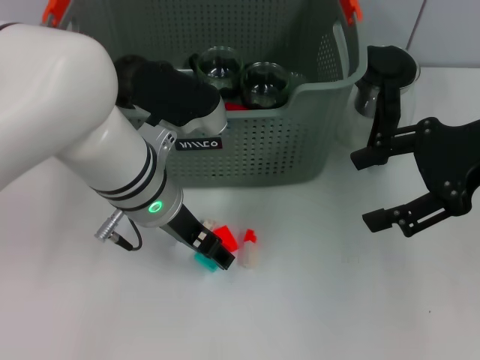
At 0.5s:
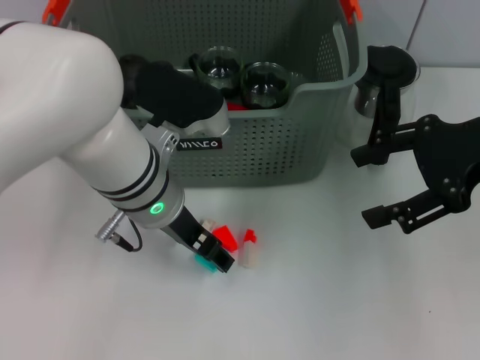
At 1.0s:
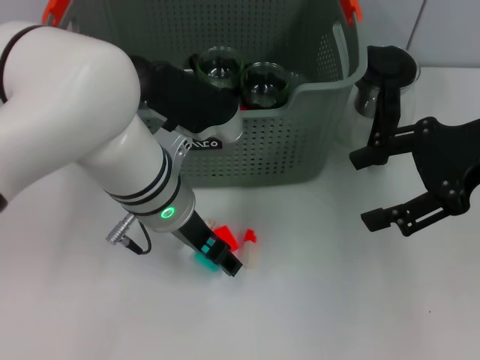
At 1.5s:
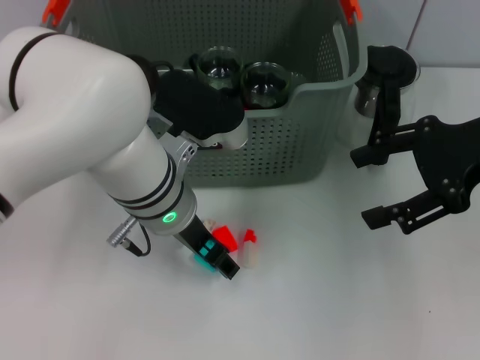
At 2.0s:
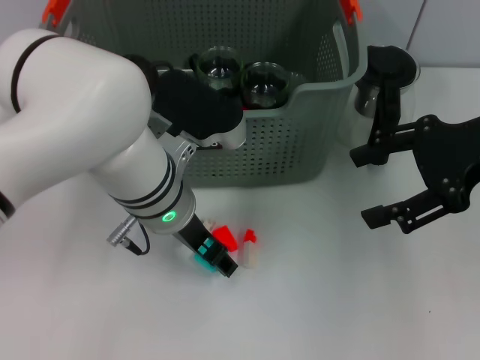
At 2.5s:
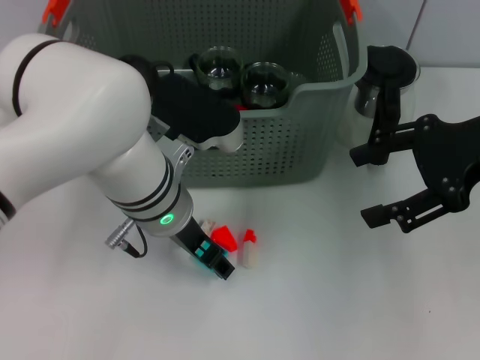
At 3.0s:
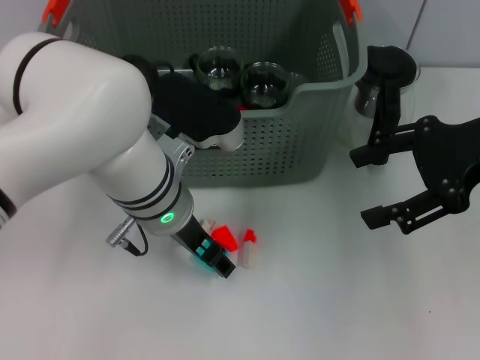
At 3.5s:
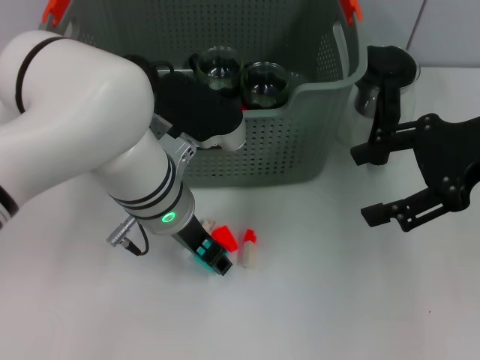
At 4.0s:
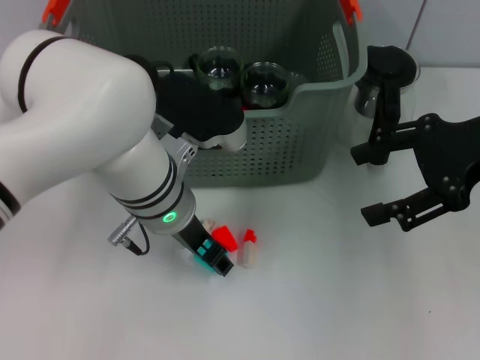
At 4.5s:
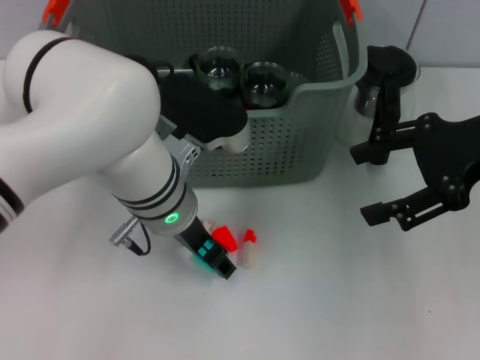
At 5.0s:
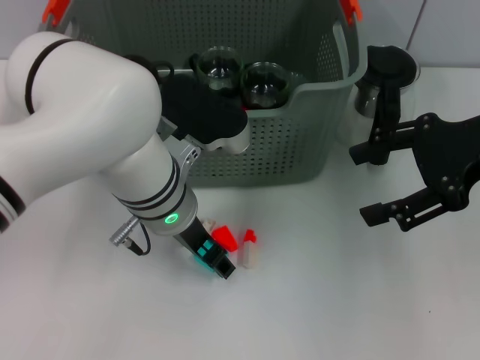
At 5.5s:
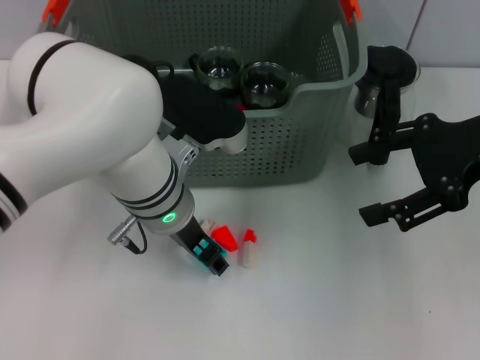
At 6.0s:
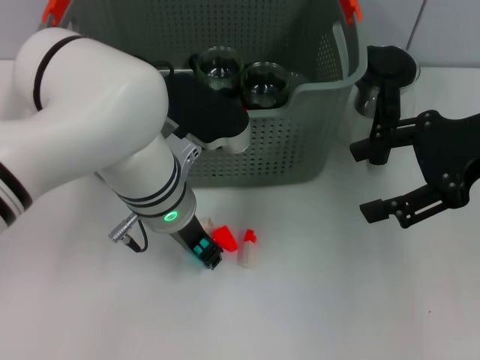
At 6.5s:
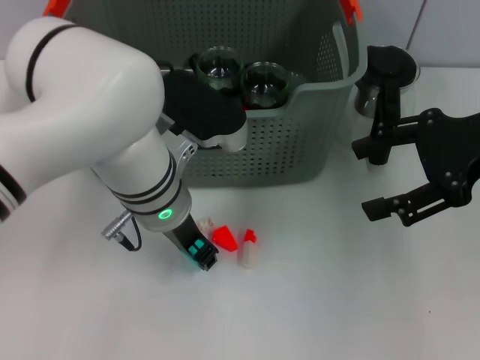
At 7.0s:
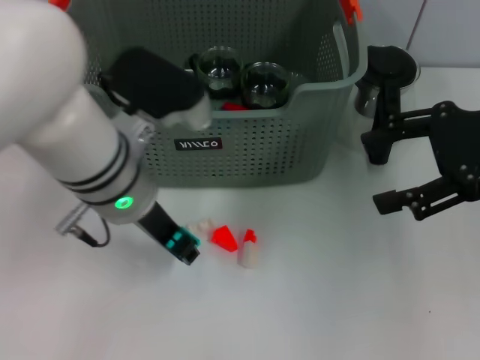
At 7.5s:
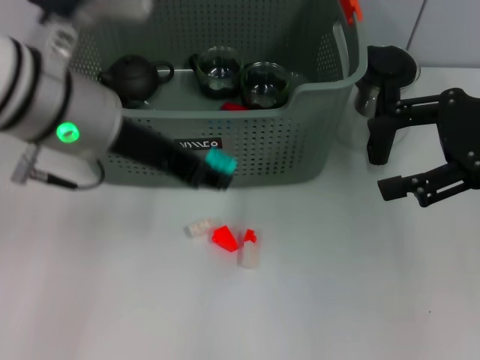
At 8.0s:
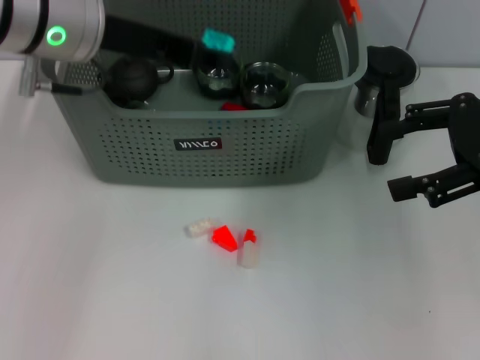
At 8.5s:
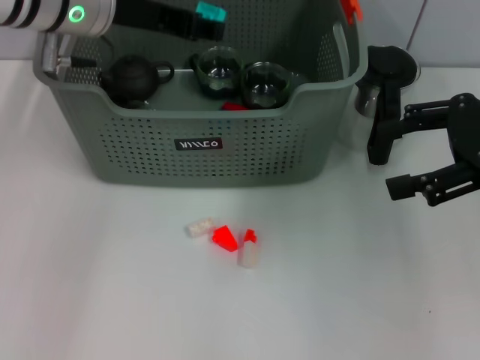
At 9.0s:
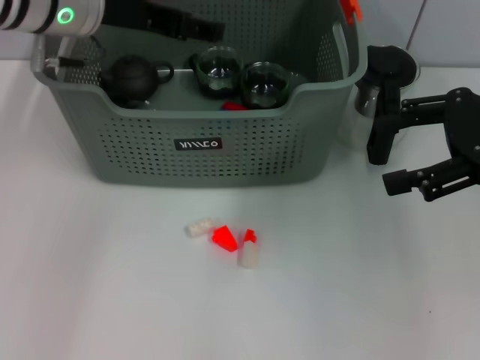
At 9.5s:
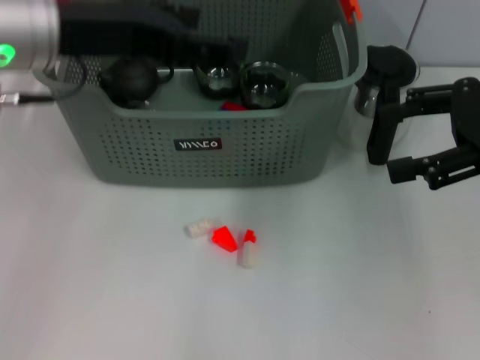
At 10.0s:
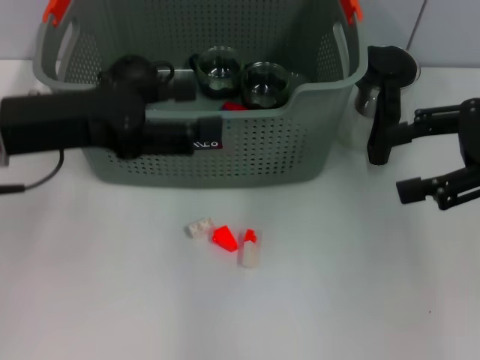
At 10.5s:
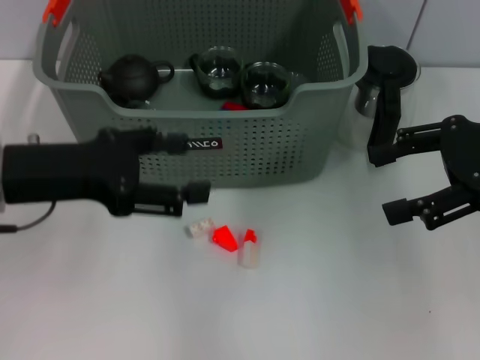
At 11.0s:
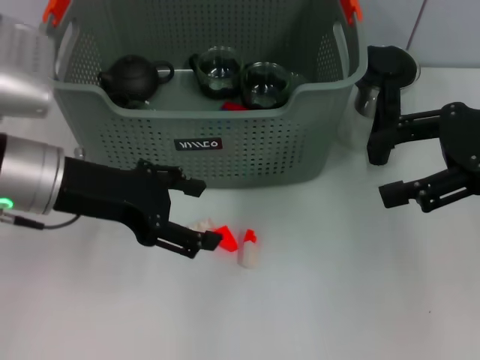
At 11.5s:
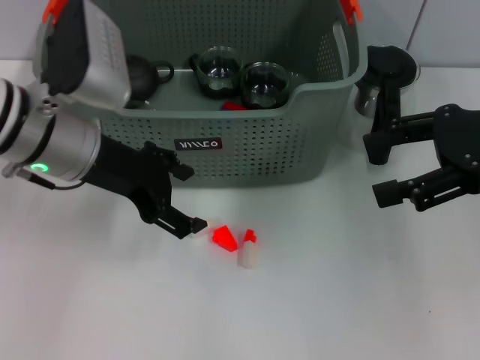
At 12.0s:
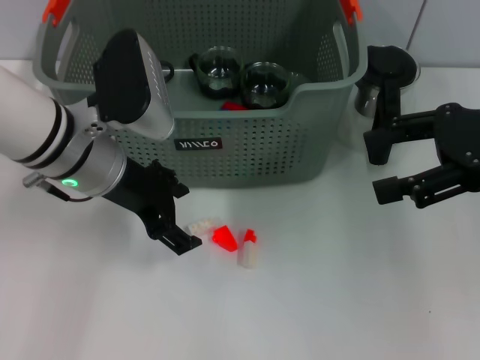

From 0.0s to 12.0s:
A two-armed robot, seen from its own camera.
Task of the whole recording: pick up the teacup on the table and place it into the storage bin, pick up the block on the table and place it into the storage bin.
Step, from 0.0s to 5.5s: Grasp the light blue block with left gripper.
Step, from 6.0s to 9.5s: Place the light blue block in the storage box with left gripper.
From 0.0s to 2.0s: The grippers move only a little.
From 2.0s to 6.0s: Both grippers stay put.
From 6.0s to 8.0s: The left gripper travels upward and to the left by roughly 15 cm.
From 8.0s to 10.0s: The left gripper travels to the left, backward and downward by approximately 10 cm, and opens.
From 10.0s to 12.0s: The left gripper travels to the right, forward and downward by roughly 10 cm.

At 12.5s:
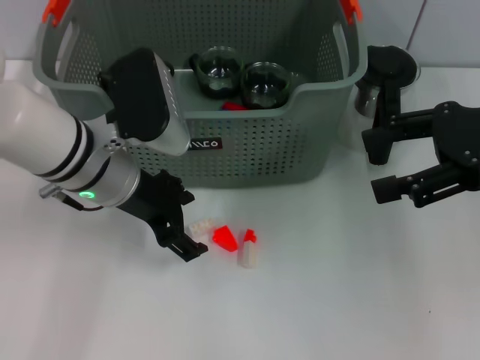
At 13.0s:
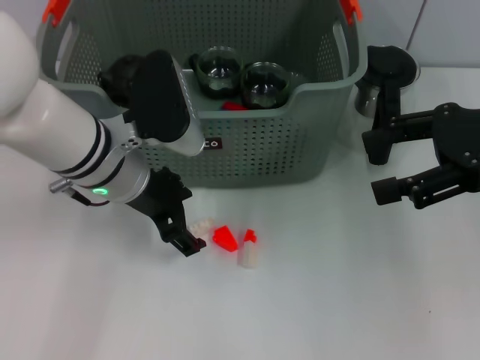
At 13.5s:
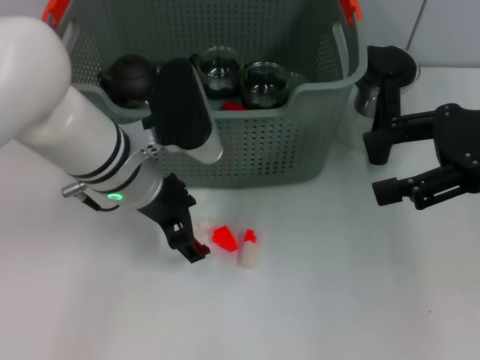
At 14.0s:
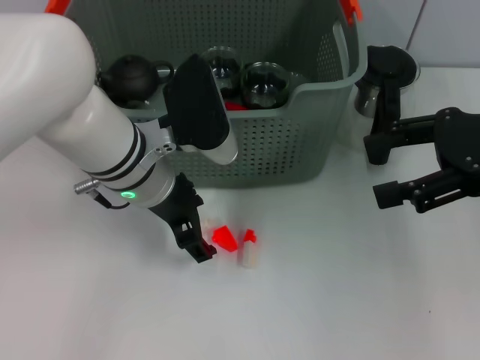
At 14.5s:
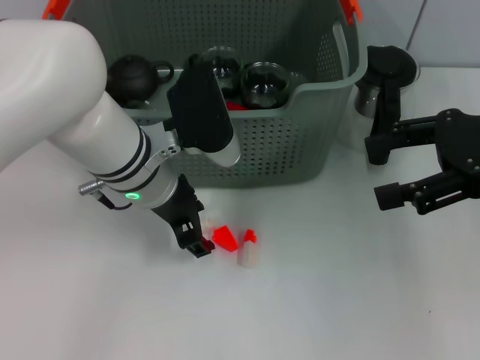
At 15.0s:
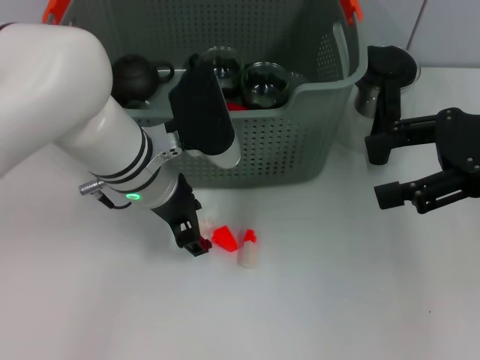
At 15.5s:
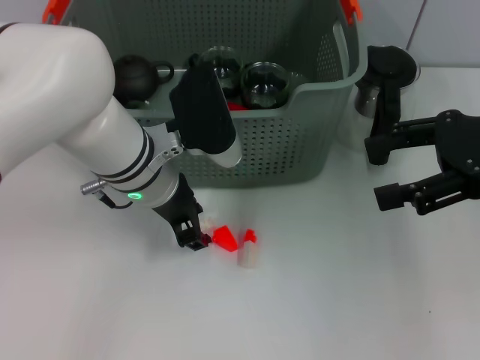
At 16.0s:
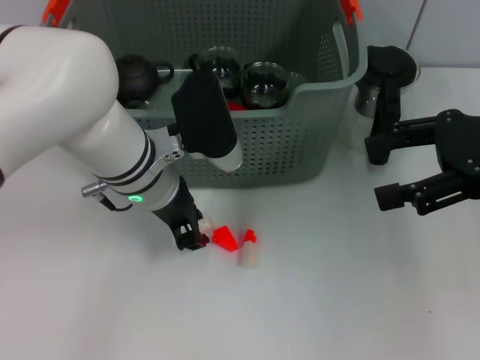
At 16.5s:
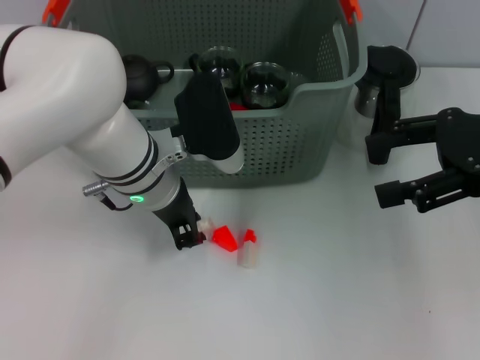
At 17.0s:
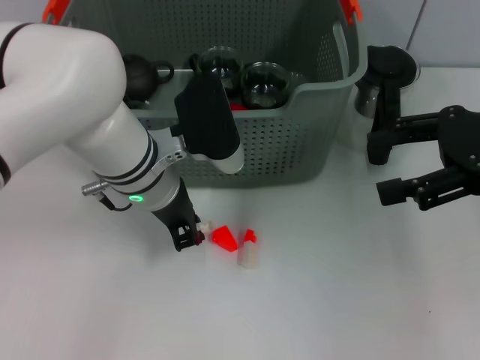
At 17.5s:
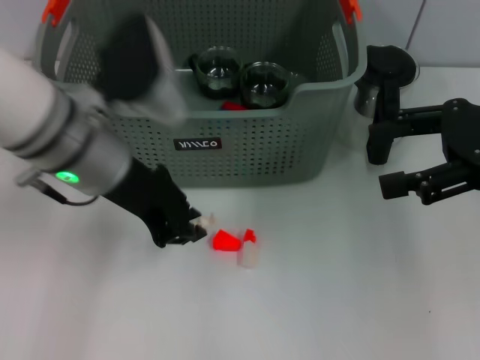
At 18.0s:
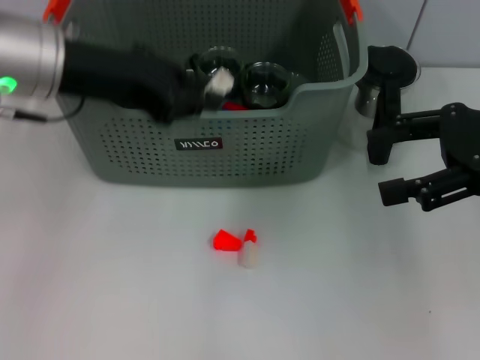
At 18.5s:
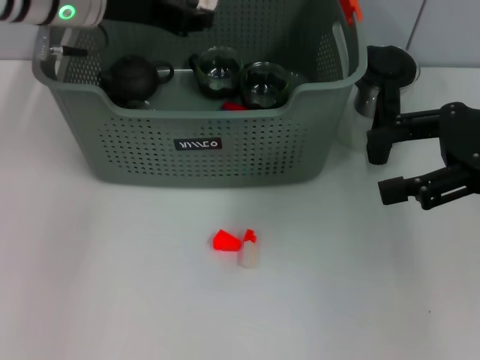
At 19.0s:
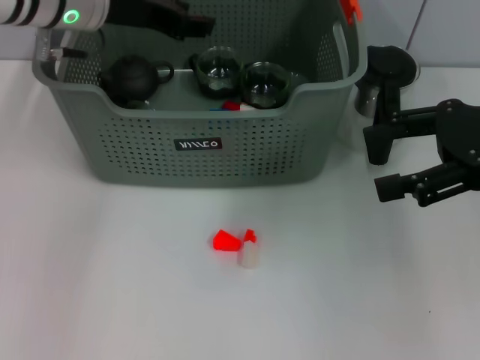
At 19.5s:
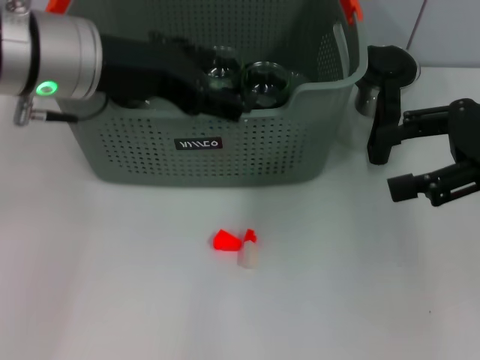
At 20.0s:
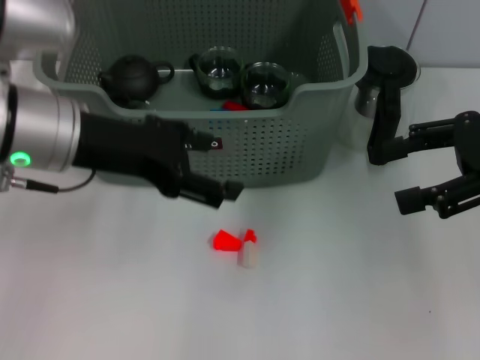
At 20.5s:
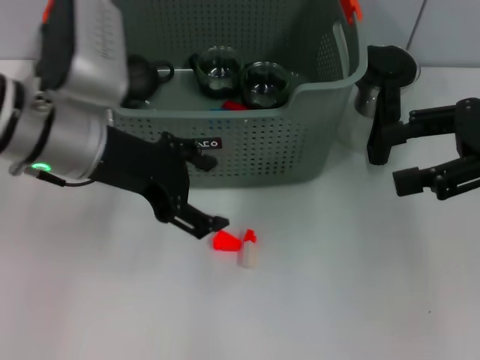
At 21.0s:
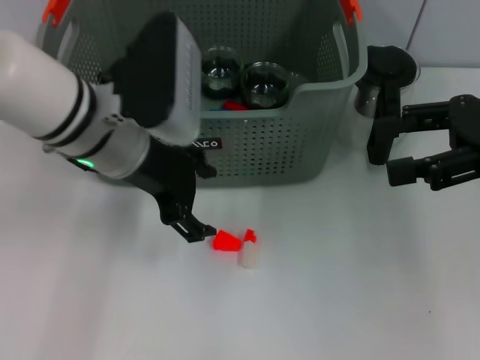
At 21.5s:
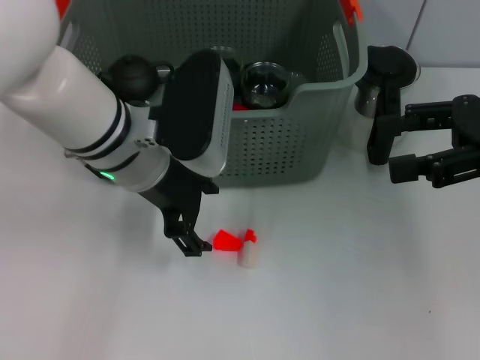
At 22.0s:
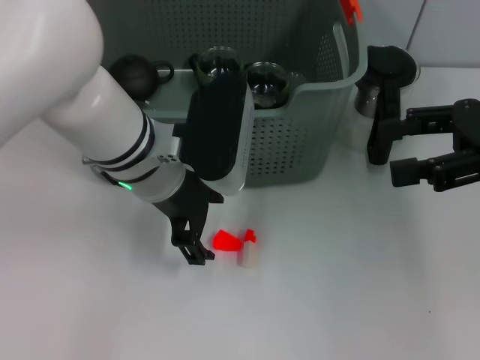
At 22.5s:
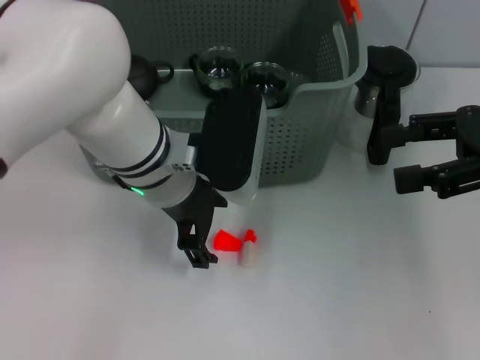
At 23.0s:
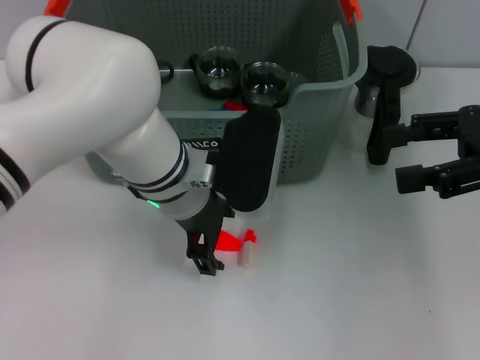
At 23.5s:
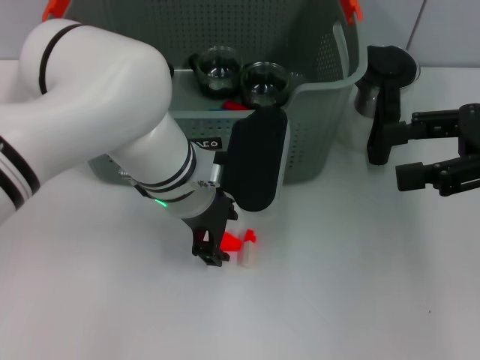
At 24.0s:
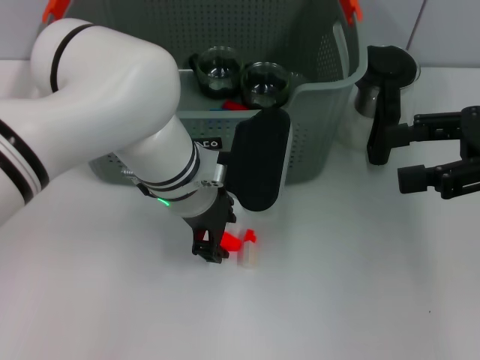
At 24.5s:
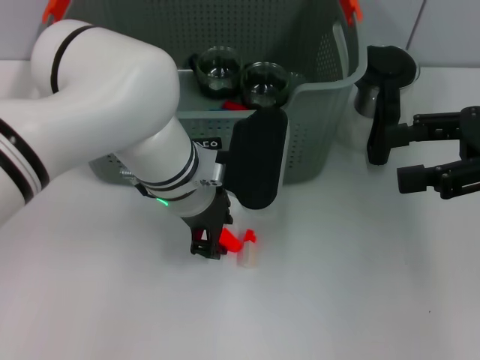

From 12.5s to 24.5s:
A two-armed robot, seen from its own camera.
Task of the whole recording: pick up the teacup on the table and place it into the storage bin, pick up the block on the table and place it into the storage bin.
Step, from 12.5s to 17.0s: Grasp the white block with left gripper.
Step, from 17.5s to 19.5s: Place the white block in the storage box with left gripper.
From 12.5s to 14.5s: There are only small adjustments of the grippers.
From 14.5s to 16.5s: The left gripper closes.
From 16.5s to 18.5s: The left gripper moves upward, to the left and forward, approximately 15 cm.
From 18.5s to 20.5s: The left gripper shifts approximately 10 cm backward, and opens.
From 20.5s to 22.5s: The left gripper goes about 10 cm to the right.
From 22.5s to 24.5s: The left gripper closes.

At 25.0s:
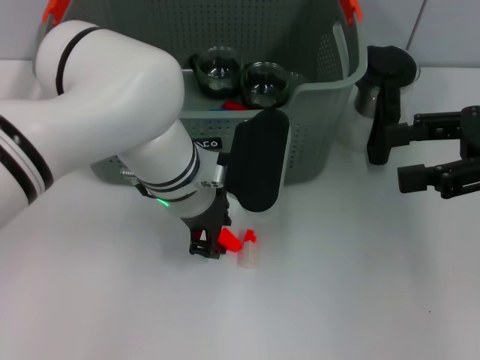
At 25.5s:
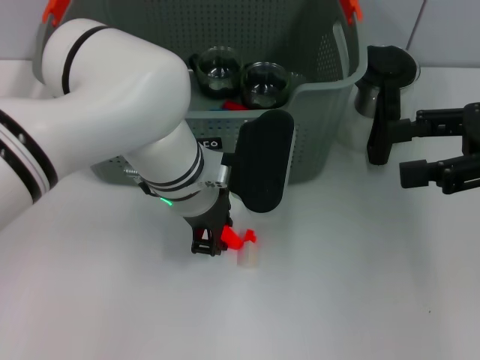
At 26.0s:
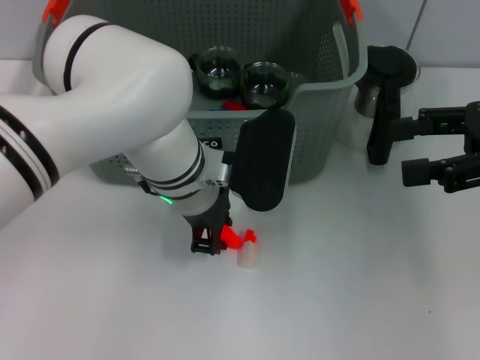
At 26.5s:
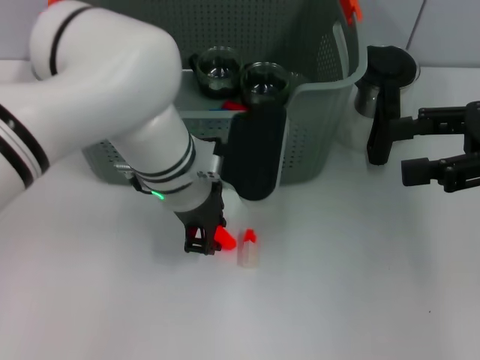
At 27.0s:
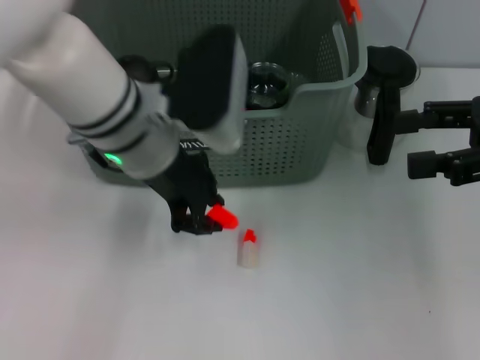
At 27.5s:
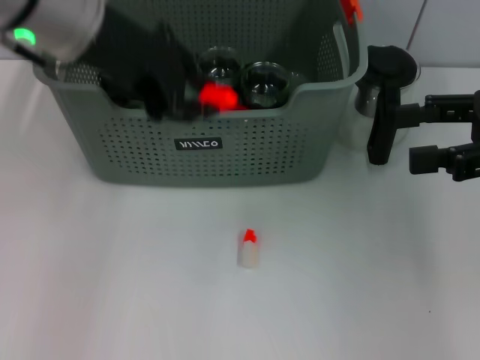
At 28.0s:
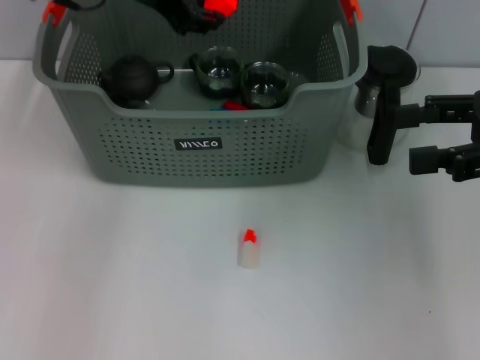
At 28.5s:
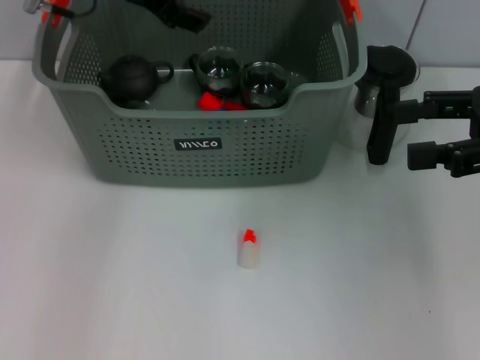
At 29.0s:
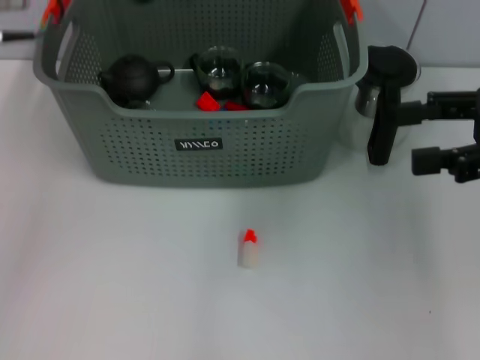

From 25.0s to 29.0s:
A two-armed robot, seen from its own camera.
Task of the whole recording: pick up the teacup on the table and place it into the storage bin, pick up the block on the table and place it into the storage bin.
From 25.0s to 27.0s: The left gripper moves upward, roughly 5 cm.
From 27.0s to 29.0s: The left gripper moves to the left and upward, about 15 cm, and opens up.
